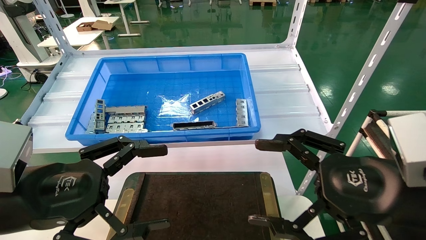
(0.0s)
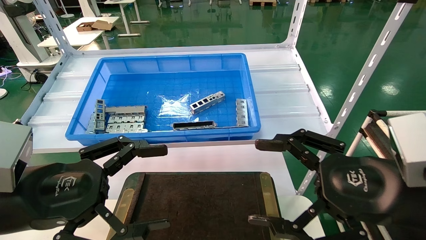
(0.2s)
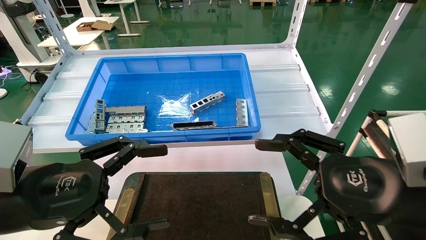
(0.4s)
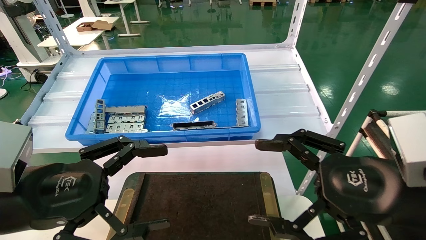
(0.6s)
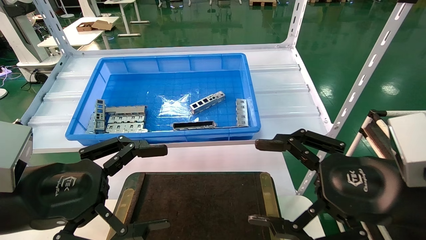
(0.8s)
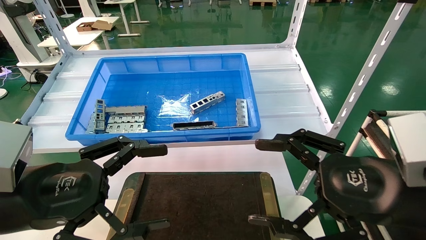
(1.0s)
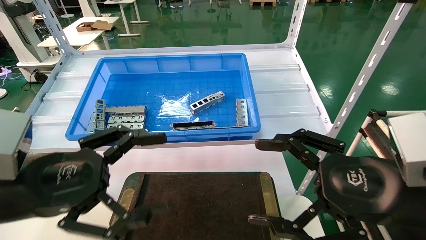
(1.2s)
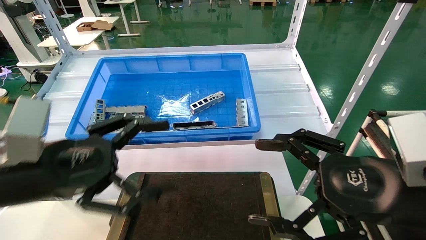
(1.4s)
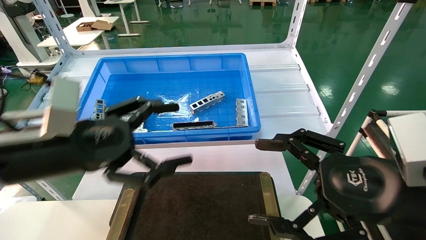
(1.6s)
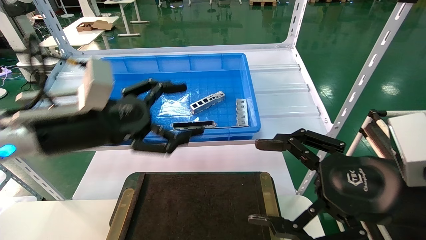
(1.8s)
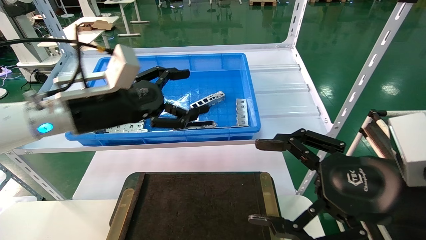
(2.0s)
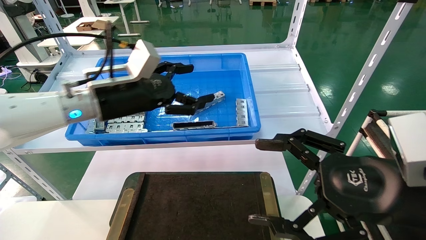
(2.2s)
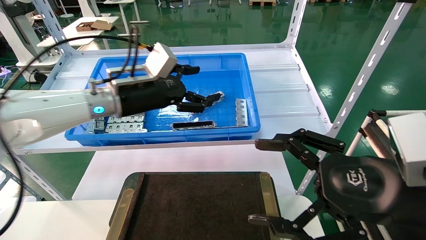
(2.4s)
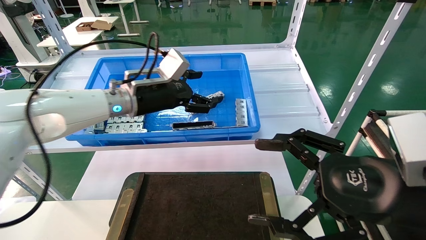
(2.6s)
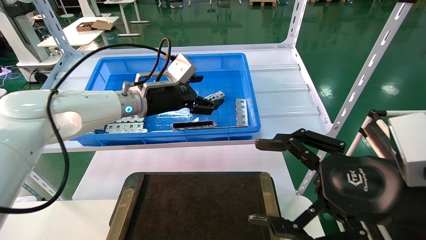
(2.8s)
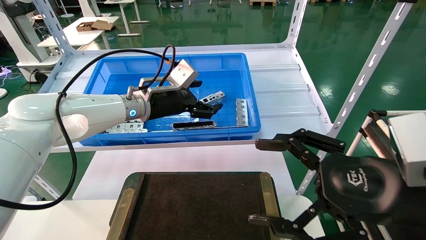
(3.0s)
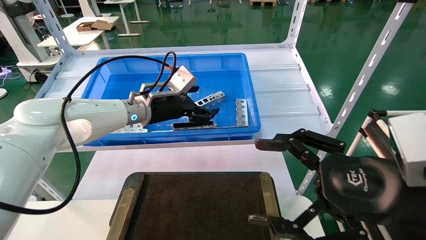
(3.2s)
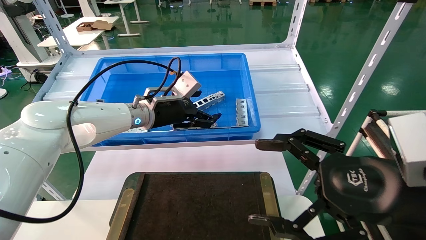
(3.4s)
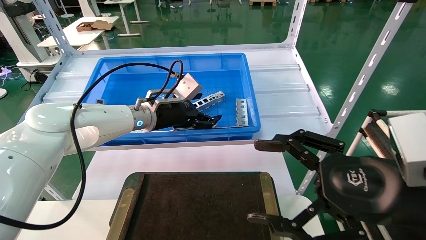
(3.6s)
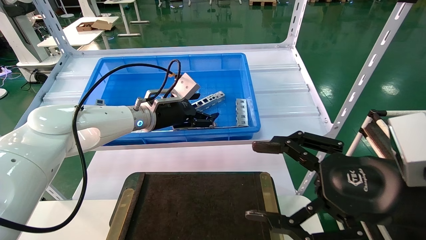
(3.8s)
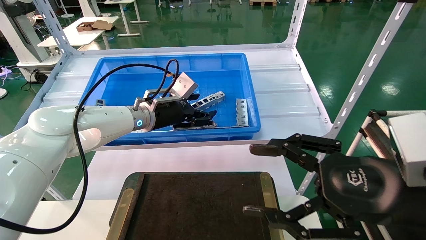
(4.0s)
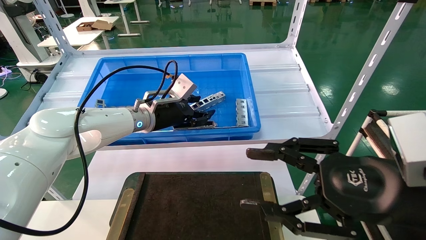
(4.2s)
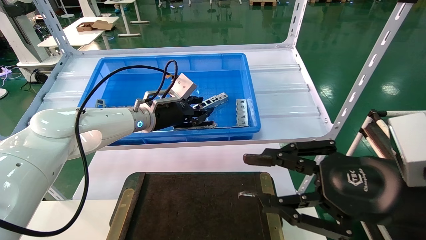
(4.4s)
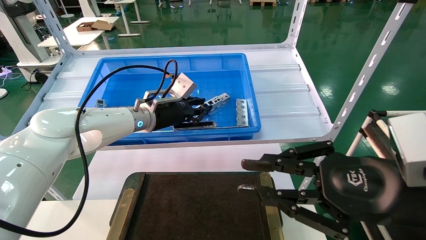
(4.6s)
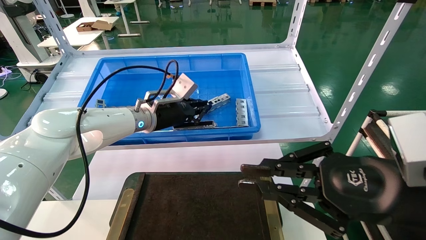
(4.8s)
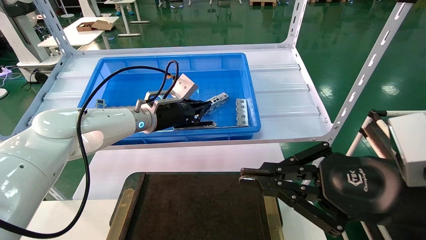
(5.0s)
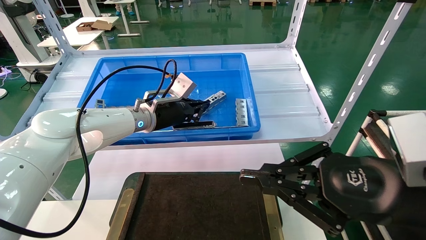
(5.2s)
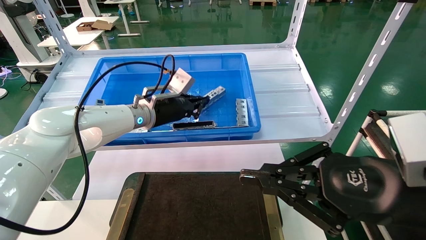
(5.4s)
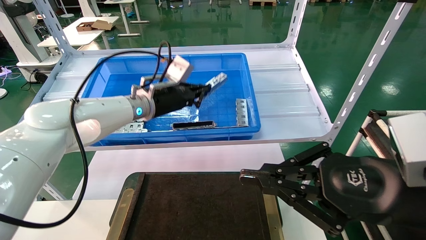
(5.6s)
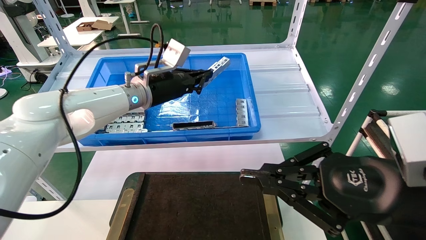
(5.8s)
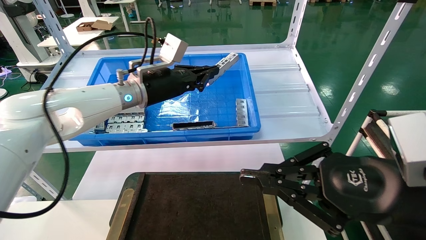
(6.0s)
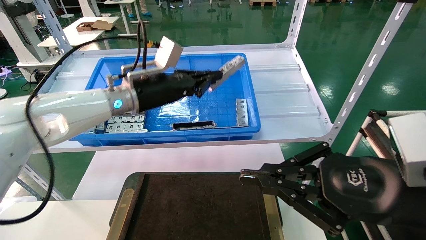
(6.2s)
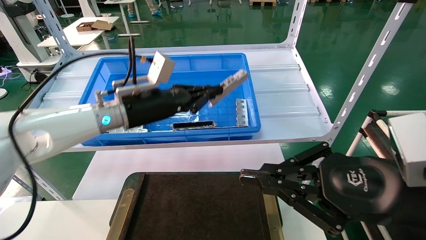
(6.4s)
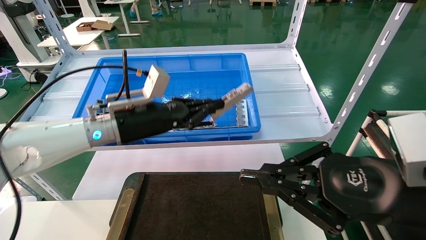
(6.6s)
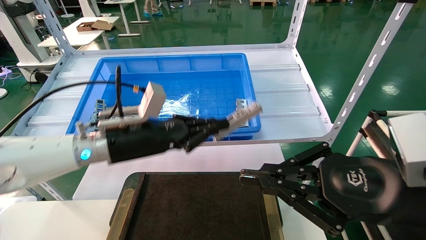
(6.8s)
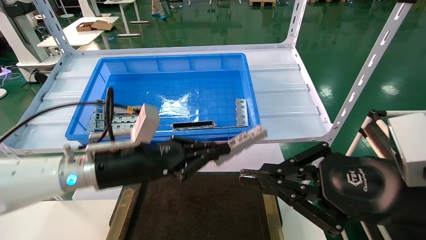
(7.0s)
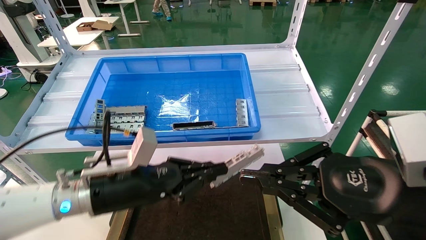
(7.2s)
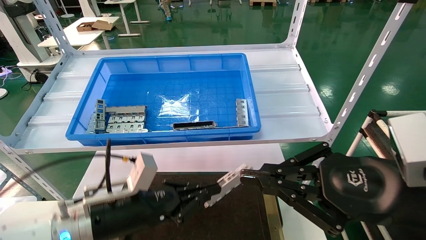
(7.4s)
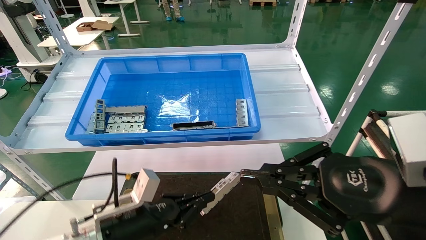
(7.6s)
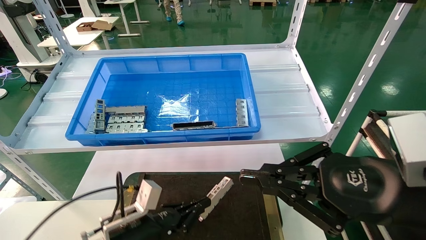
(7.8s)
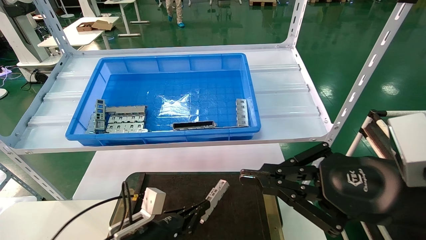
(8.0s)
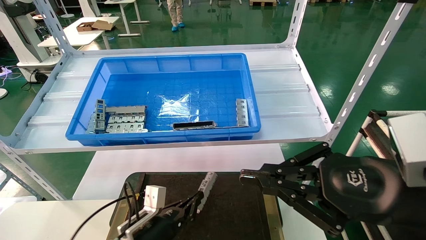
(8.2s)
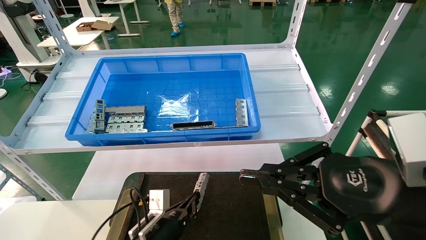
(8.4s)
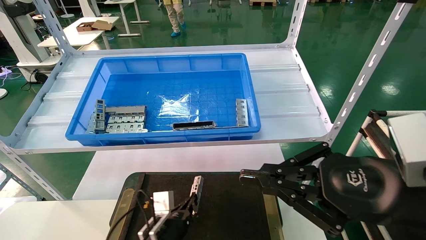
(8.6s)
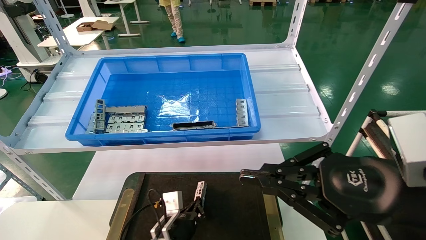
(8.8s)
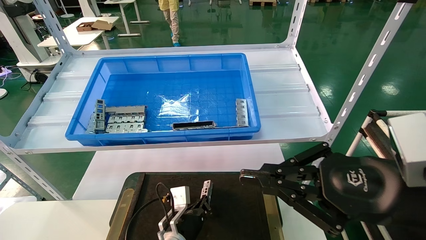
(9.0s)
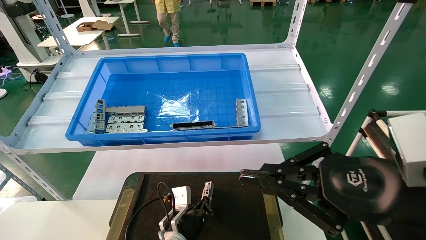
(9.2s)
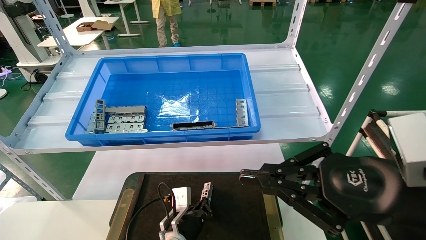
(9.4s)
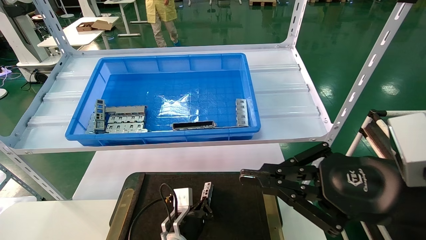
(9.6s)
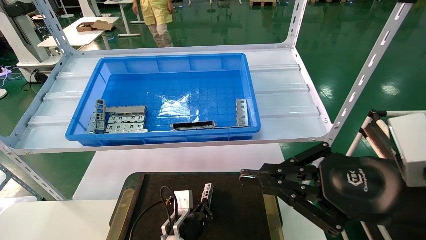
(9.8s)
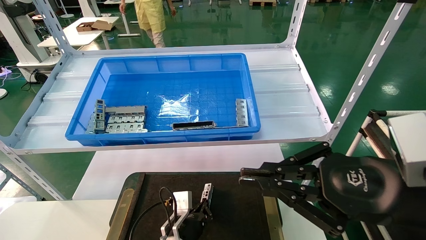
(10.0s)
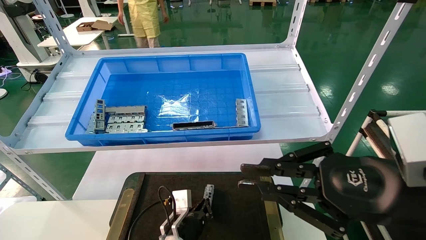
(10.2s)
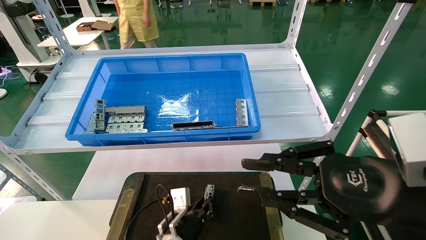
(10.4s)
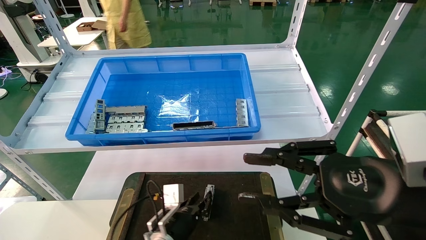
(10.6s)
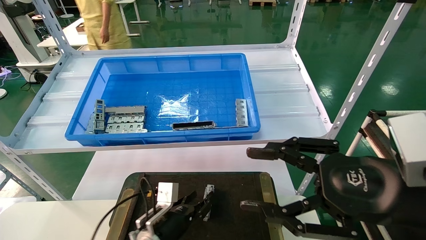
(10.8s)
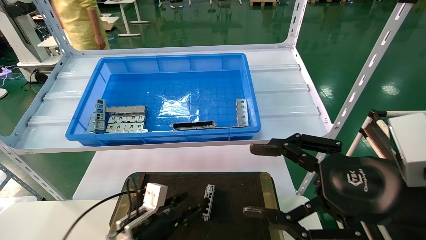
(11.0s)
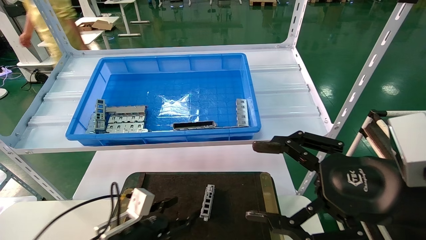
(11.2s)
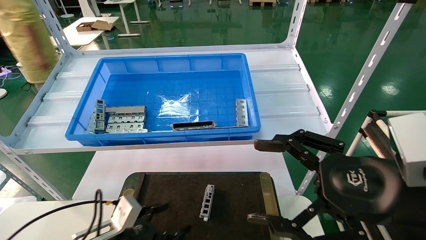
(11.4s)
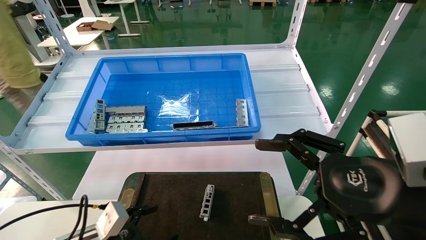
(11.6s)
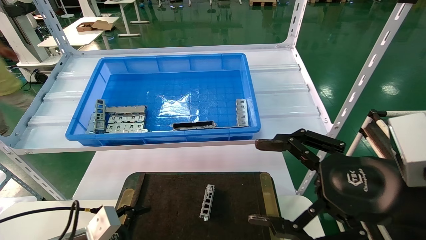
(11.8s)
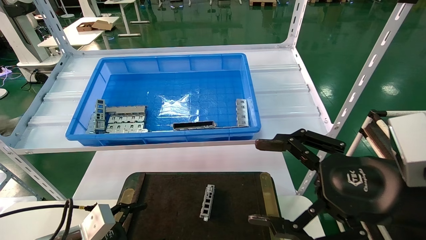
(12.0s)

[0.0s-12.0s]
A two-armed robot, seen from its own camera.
Task of the whole recording: Grasp the part with one hand and place it on the black container.
Step, 1.4s to 5.4s: Pick up the front USB bracket from the feeding area.
Step, 5.6s to 10.4s: Place the front USB bracket into the box.
0.0s to 1.6s: The left gripper is displaced forward by approximately 5 cm.
1.6s to 3.0s: The left gripper travels forward and to the right by some 25 cm.
3.0s to 4.4s: The right gripper closes its fingers, while the left gripper closes its fingers.
4.4s to 6.0s: The left gripper goes about 5 cm upward, and closes its fingers, while the right gripper closes.
6.0s to 7.6s: The left gripper moves downward and backward, some 30 cm.
7.6s to 9.0s: The left gripper travels downward, to the right and forward by approximately 15 cm.
9.0s to 10.4s: The grippers move only a little.
10.4s to 12.0s: The left gripper travels to the left and backward by roughly 25 cm, and opens up, while the right gripper opens.

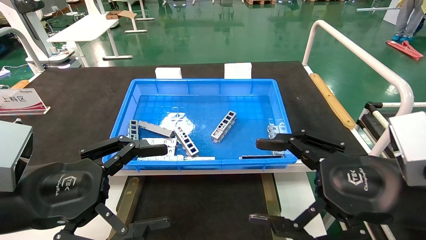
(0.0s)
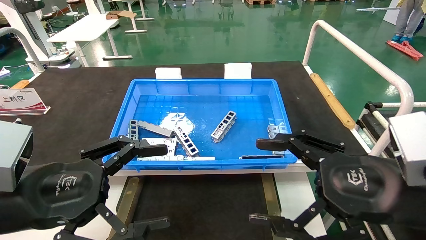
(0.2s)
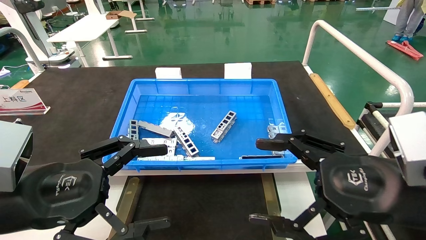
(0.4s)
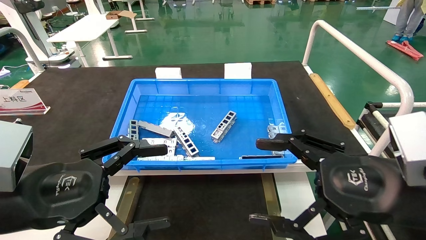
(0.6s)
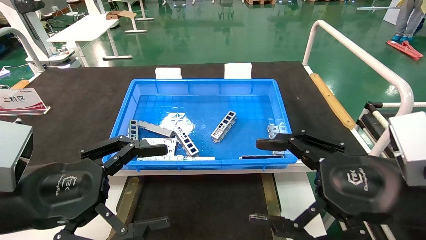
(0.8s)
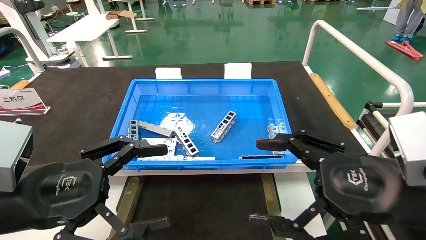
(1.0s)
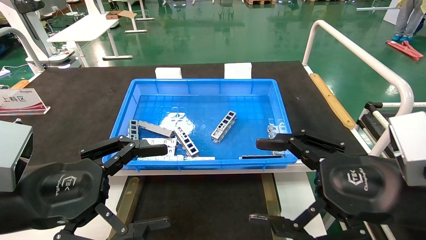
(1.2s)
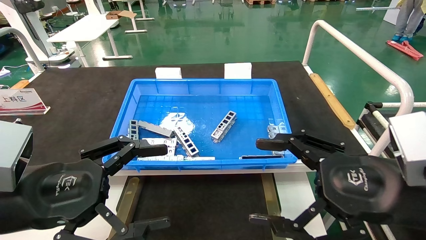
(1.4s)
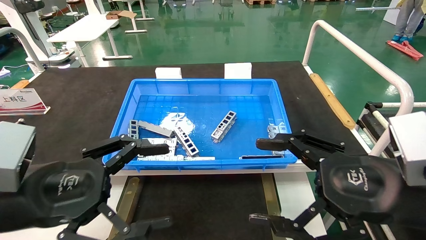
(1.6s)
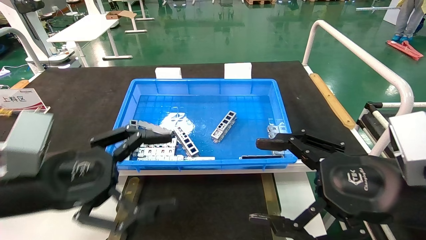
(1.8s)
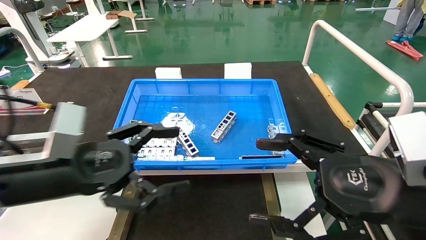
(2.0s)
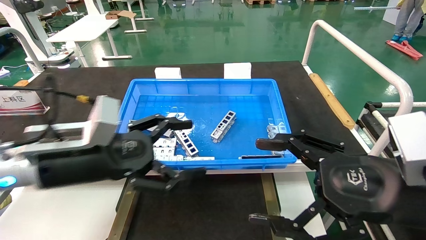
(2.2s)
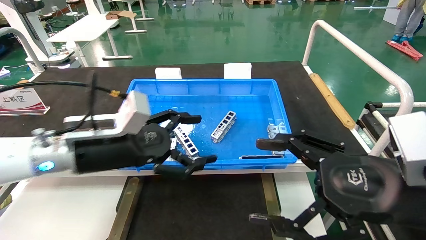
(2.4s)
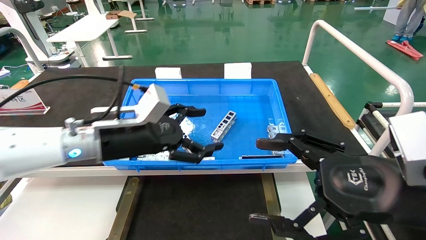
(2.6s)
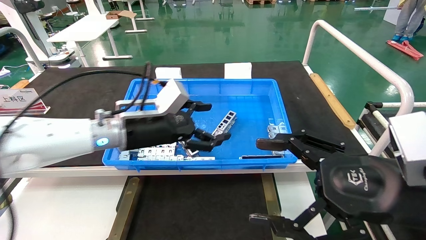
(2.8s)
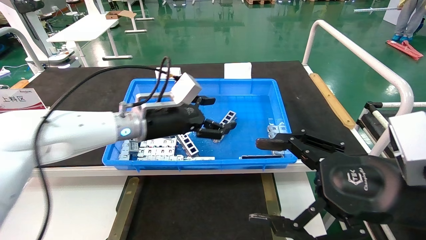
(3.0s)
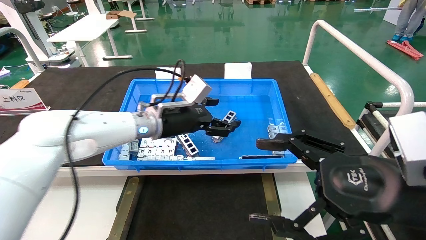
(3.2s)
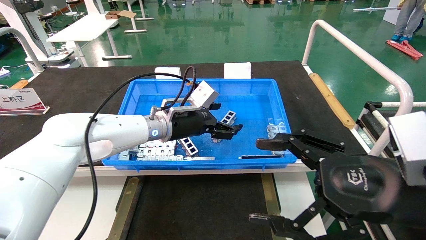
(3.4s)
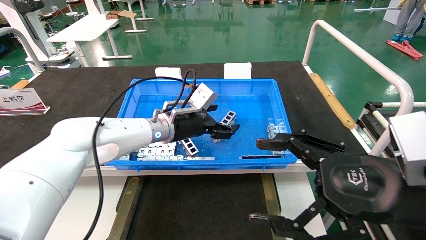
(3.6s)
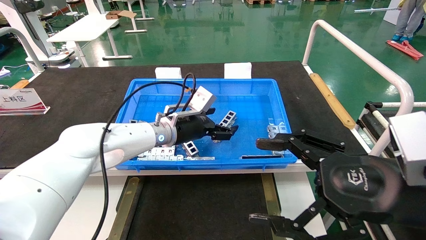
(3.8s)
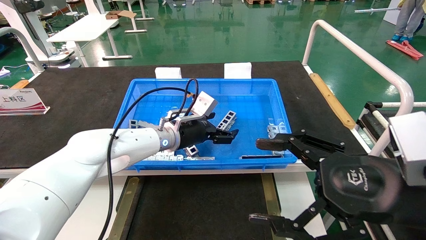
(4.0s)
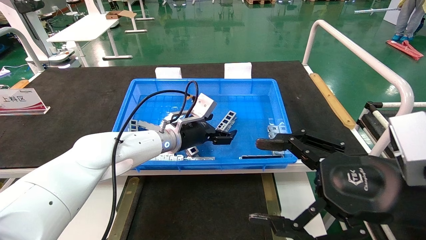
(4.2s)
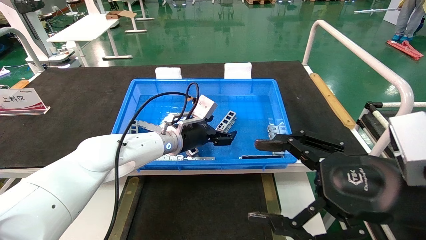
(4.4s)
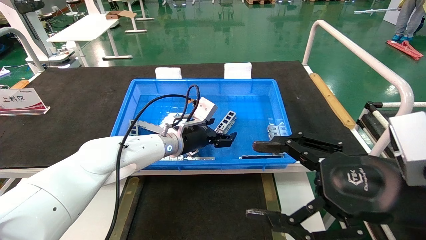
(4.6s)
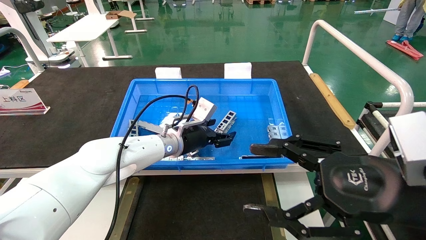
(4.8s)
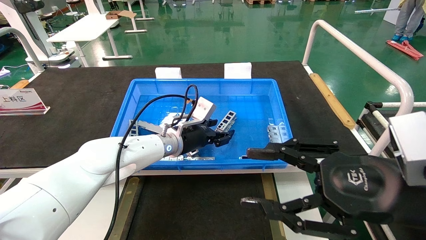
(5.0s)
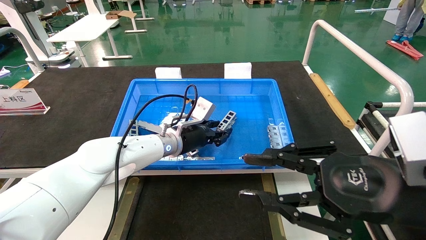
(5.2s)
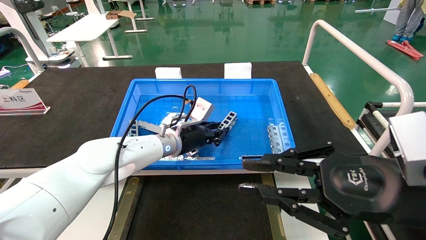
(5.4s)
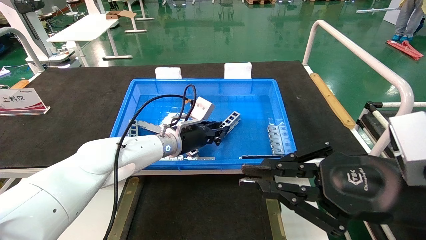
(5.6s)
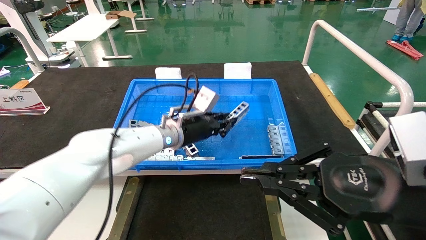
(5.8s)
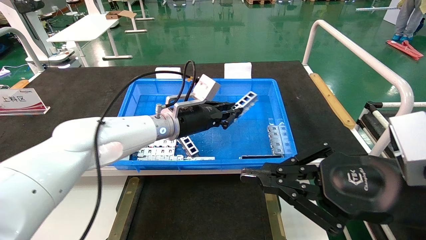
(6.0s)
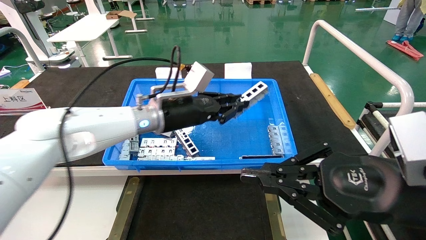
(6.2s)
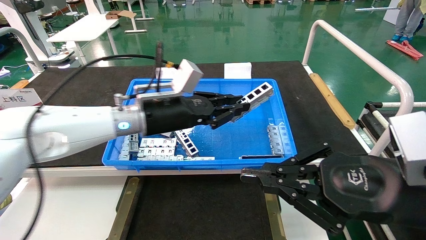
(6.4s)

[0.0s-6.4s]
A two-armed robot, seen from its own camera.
Task of the whole recording: Grasp the part with one hand and place it on the black container.
Step, 1.8s to 5.6s: Pick up the front USB bracket from the feeding area.
0.0s to 1.6s: Both grippers stay put.
1.6s to 3.2s: The left gripper is displaced forward and to the right by some 30 cm.
3.2s to 4.8s: The left gripper heads downward, covering some 5 cm.
4.8s to 6.4s: The left gripper shifts roughly 10 cm backward and upward, and closes. Meanwhile the right gripper closes.
